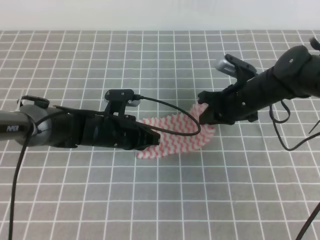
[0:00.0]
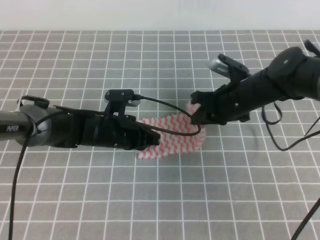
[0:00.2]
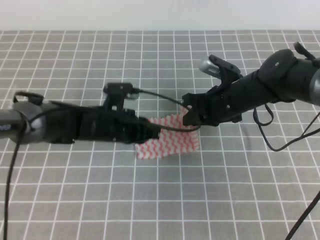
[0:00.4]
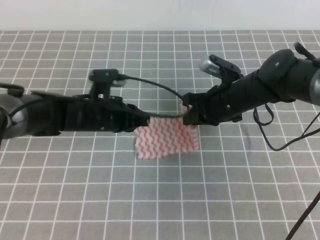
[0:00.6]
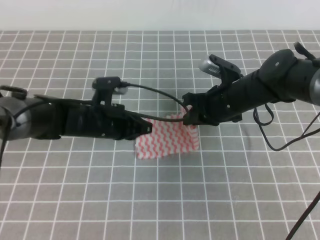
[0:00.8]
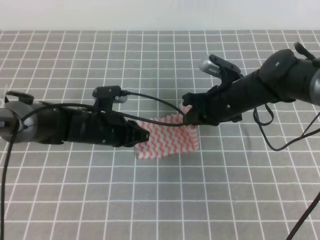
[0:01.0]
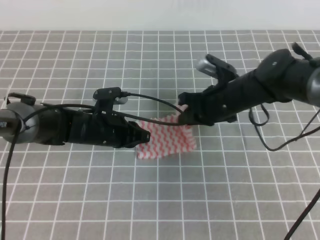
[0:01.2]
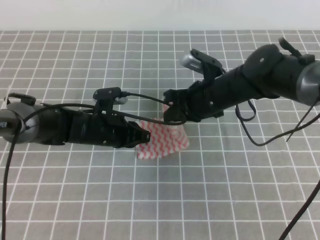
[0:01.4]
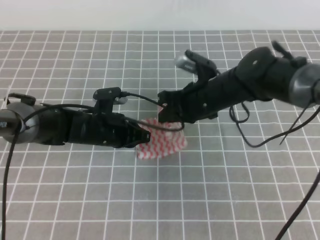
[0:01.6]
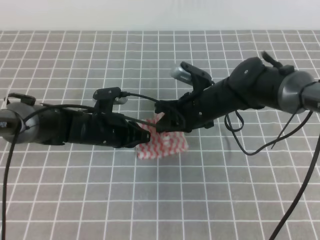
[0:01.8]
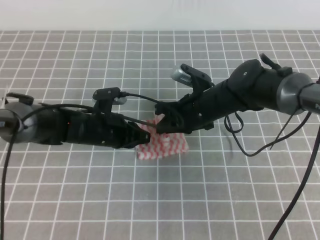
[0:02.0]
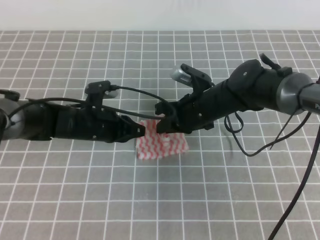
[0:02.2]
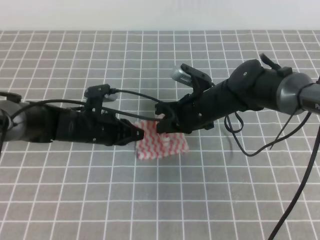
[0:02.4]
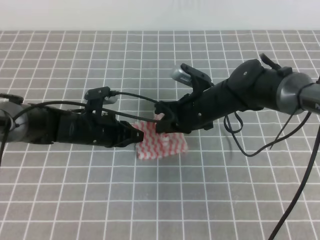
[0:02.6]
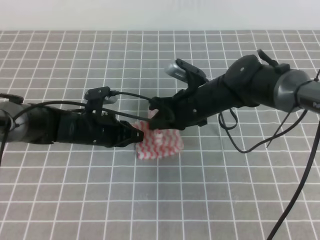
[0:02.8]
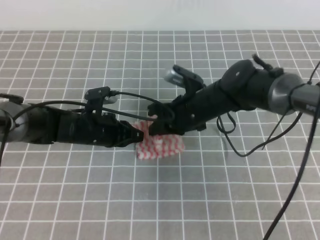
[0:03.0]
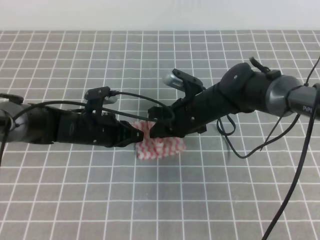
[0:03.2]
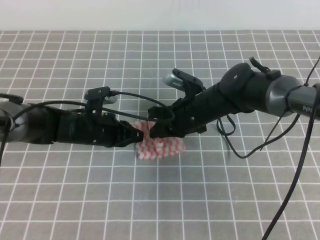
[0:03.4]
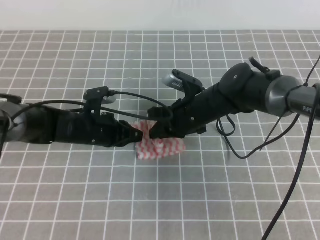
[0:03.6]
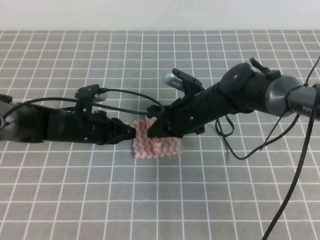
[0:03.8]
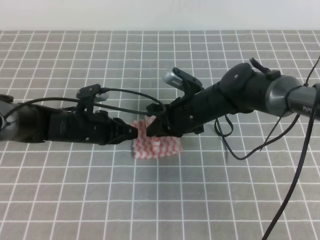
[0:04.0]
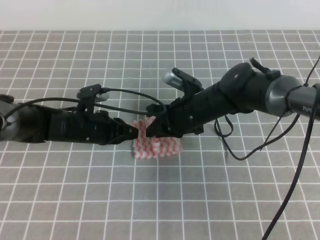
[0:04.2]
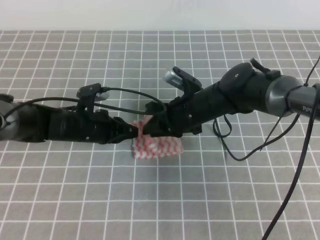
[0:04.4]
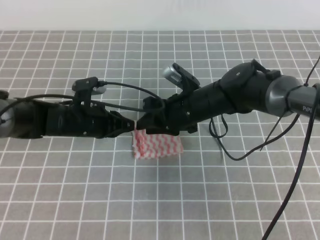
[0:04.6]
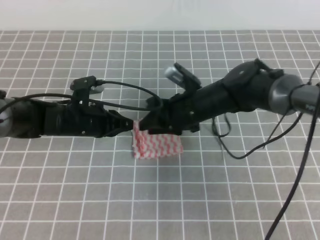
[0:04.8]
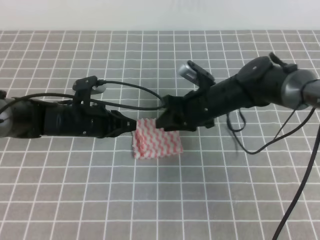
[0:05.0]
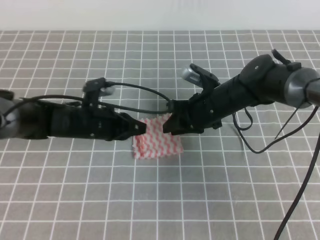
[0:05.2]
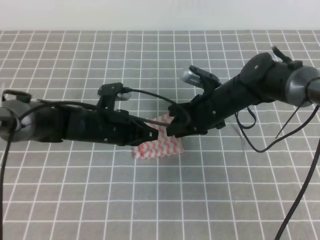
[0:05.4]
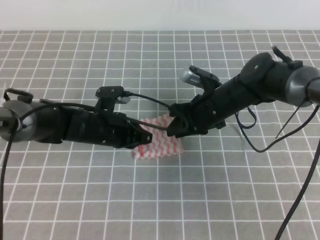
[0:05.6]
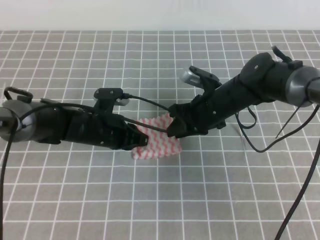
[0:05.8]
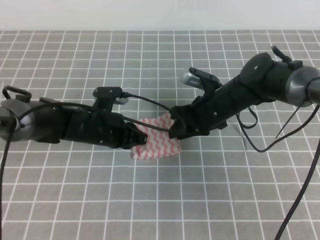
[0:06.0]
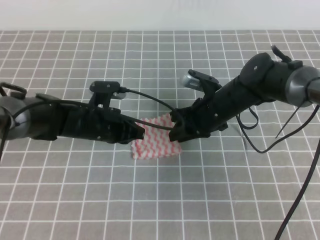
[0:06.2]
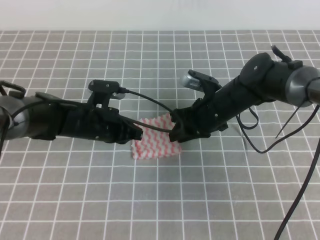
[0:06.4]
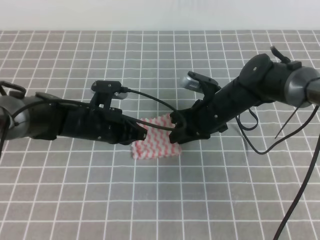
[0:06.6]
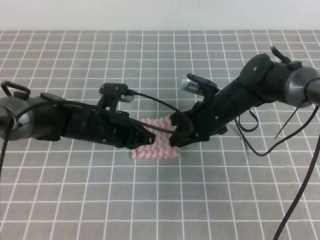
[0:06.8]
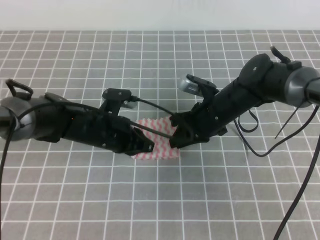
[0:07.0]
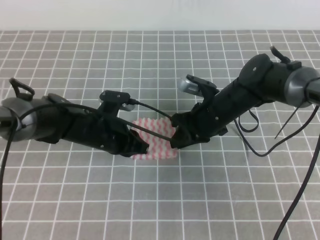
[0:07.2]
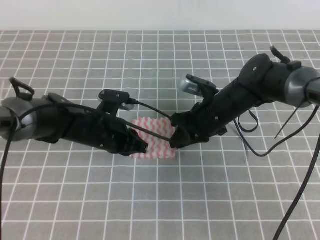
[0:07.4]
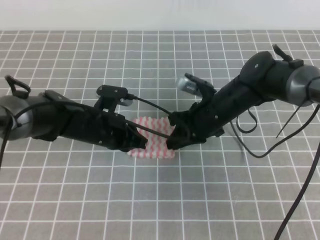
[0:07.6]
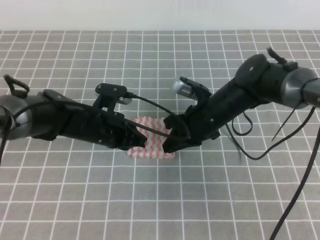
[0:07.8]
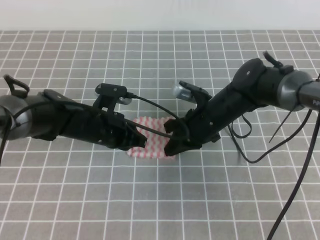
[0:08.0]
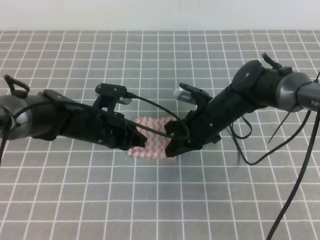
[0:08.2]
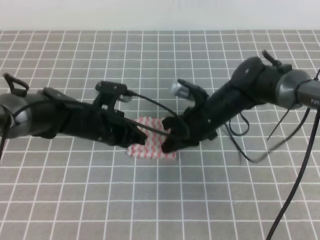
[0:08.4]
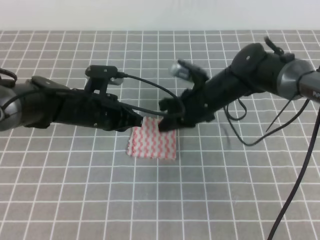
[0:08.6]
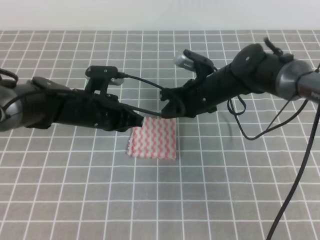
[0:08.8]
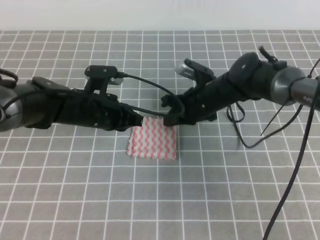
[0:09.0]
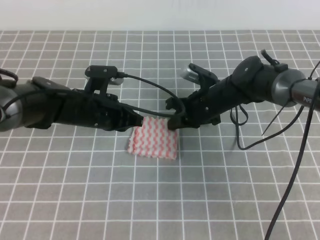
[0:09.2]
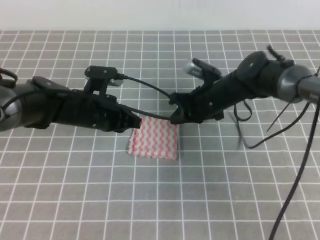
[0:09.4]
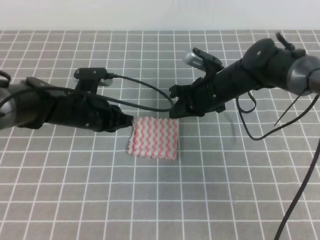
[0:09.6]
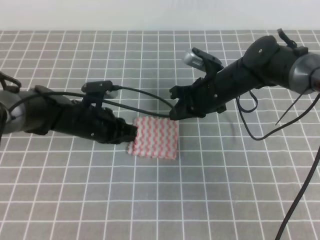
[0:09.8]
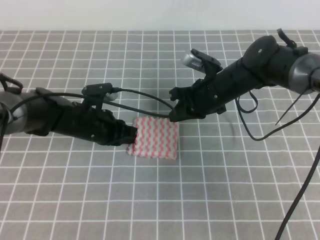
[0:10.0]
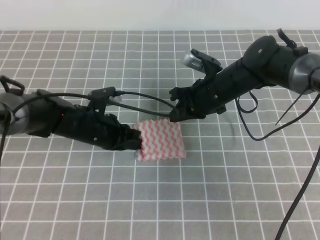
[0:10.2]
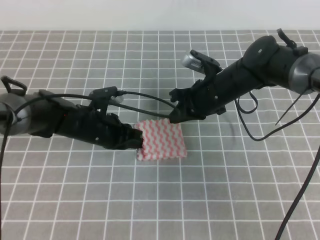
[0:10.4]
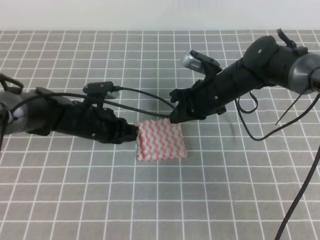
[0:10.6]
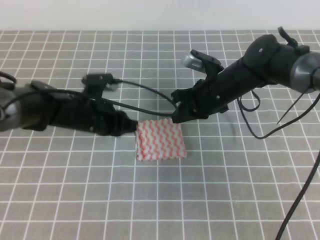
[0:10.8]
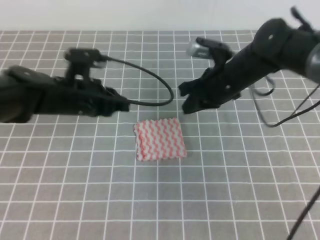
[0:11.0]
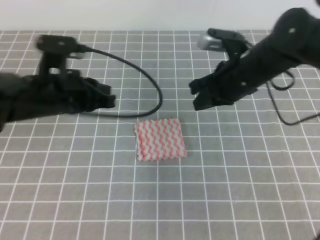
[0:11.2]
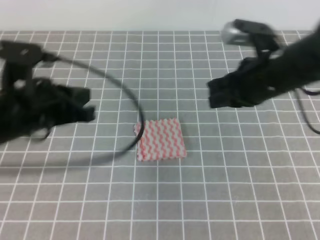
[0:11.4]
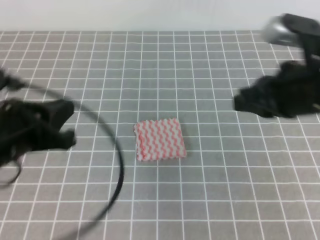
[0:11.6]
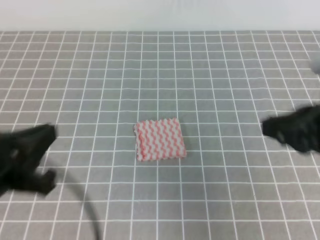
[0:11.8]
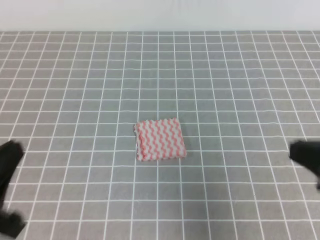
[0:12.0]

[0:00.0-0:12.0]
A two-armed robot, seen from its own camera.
0:00.0 to 0:01.6: The right gripper goes about 5 cm to the left.
0:01.6 to 0:03.0: There are only small adjustments of the grippers.
0:03.0 to 0:04.4: The right gripper opens.
0:04.4 to 0:06.0: The grippers make only small movements.
0:06.0 to 0:07.6: The right gripper closes up.
0:09.0 to 0:10.4: The grippers move only a little.
0:10.4 to 0:12.0: The right gripper goes roughly 30 cm backward, to the right and upward. The left gripper is displaced backward and upward by approximately 30 cm.

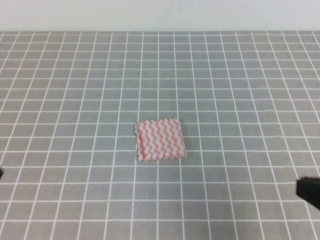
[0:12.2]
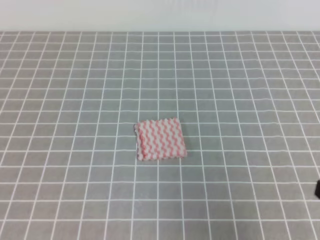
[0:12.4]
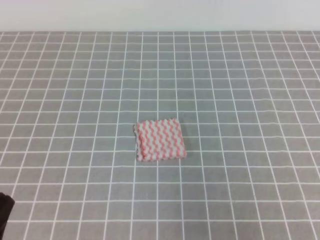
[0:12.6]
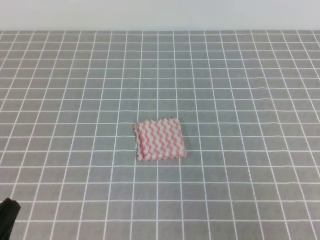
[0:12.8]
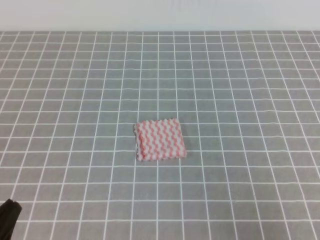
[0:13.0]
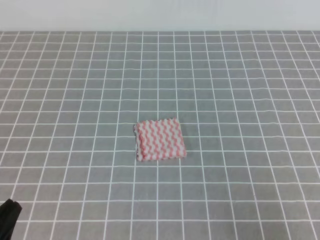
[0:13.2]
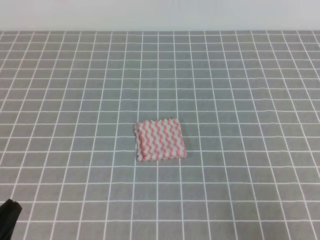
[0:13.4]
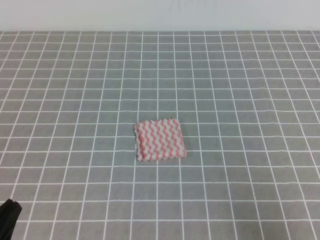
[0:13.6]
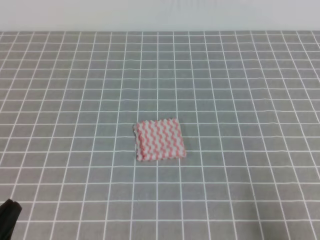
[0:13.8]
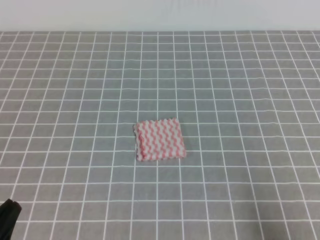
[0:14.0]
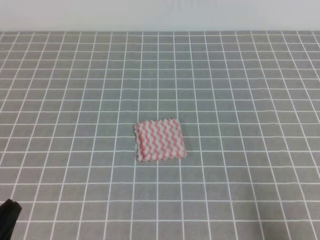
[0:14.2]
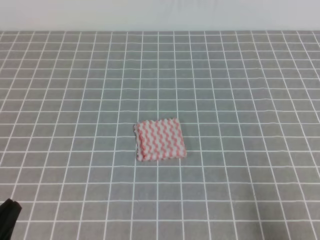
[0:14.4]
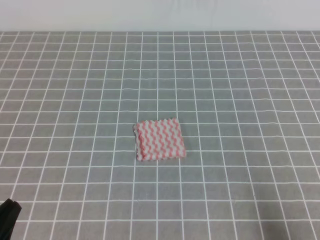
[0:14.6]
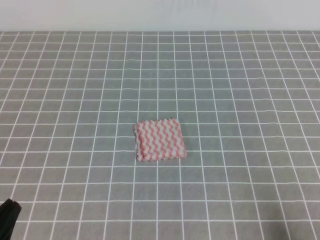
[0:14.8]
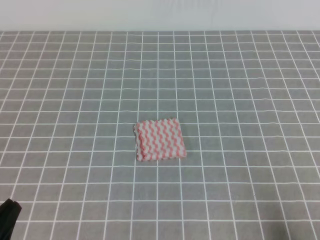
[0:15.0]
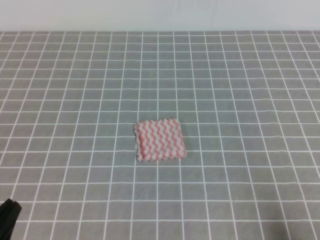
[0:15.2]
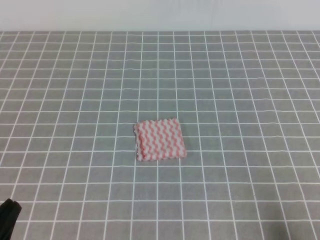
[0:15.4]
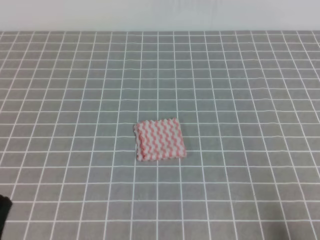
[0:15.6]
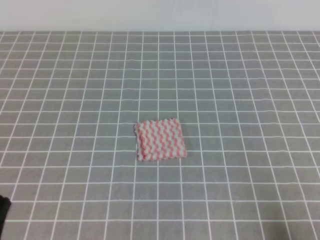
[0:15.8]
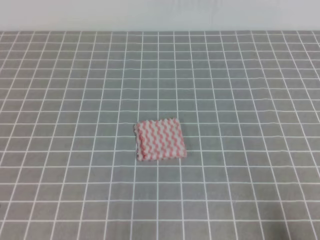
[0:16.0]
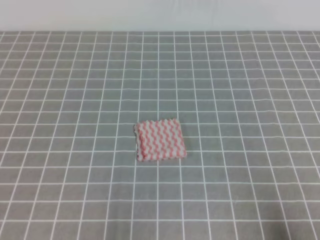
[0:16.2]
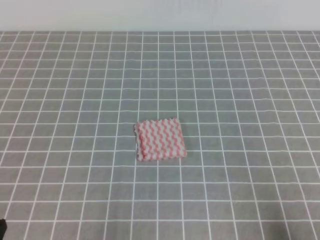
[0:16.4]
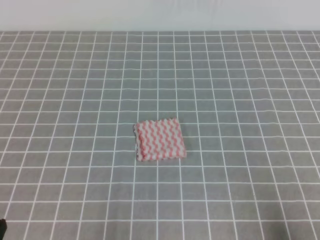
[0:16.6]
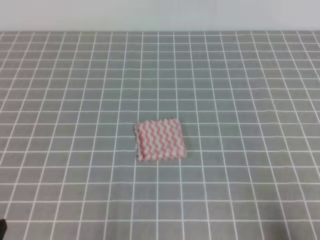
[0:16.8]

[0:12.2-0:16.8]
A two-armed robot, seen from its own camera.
0:12.2 to 0:13.8: The right gripper goes about 10 cm downward and to the right. Meanwhile the left gripper is displaced downward by approximately 5 cm.
